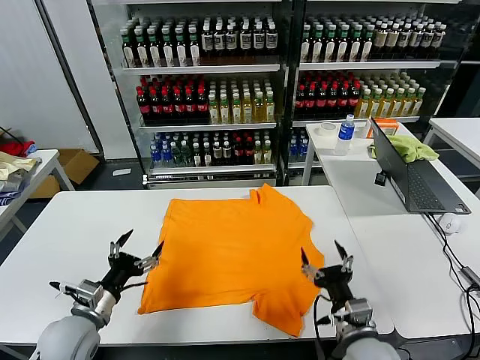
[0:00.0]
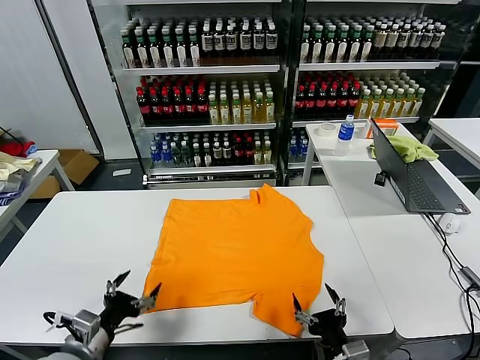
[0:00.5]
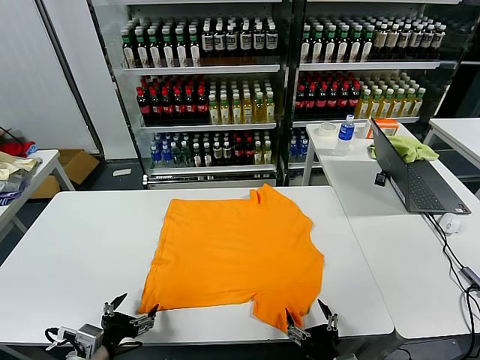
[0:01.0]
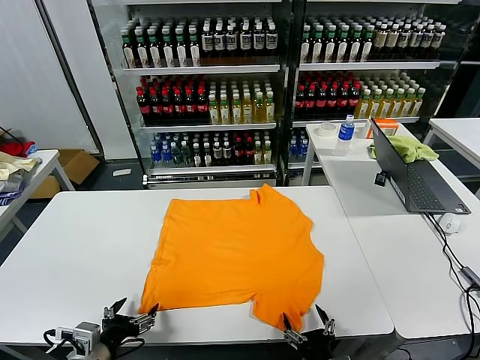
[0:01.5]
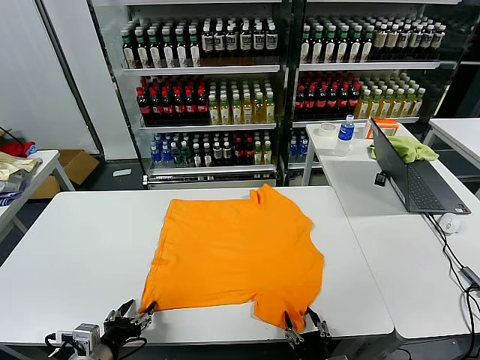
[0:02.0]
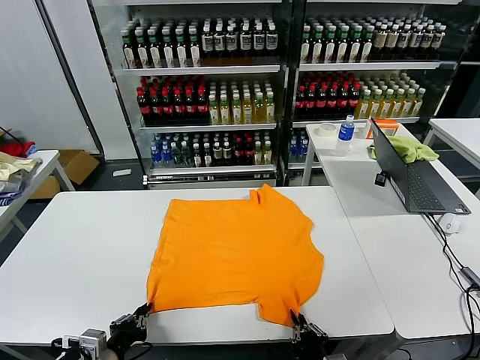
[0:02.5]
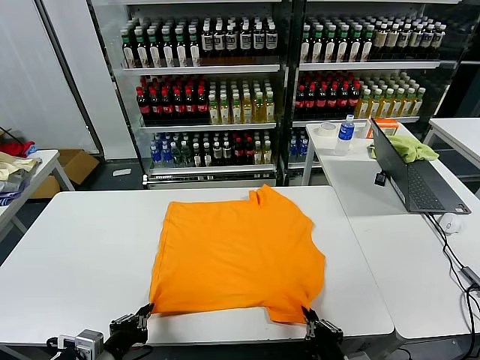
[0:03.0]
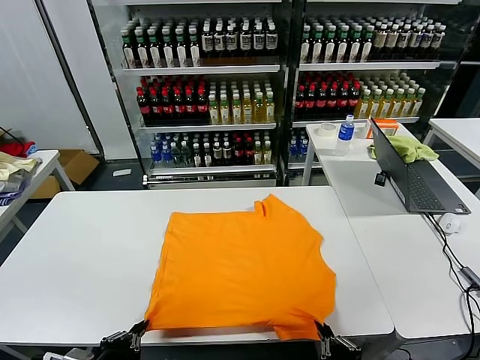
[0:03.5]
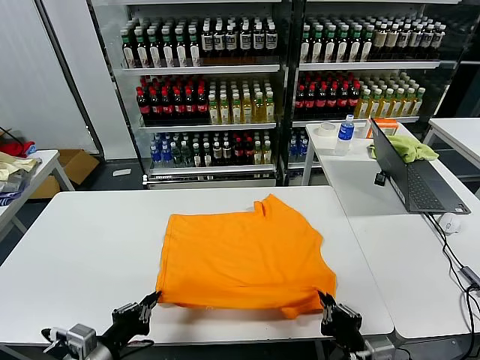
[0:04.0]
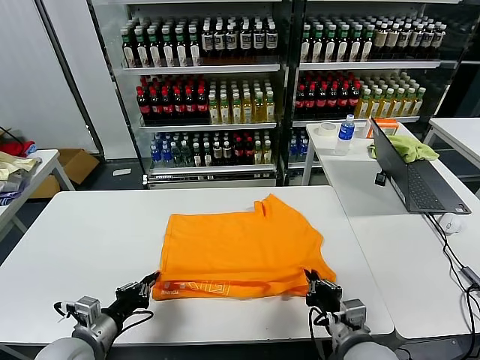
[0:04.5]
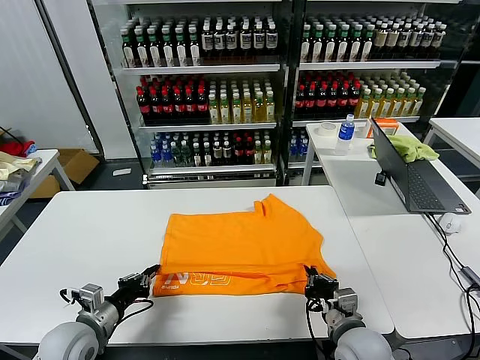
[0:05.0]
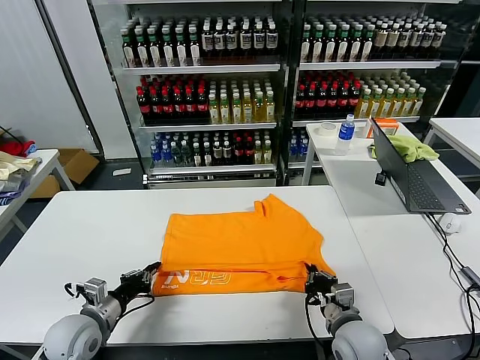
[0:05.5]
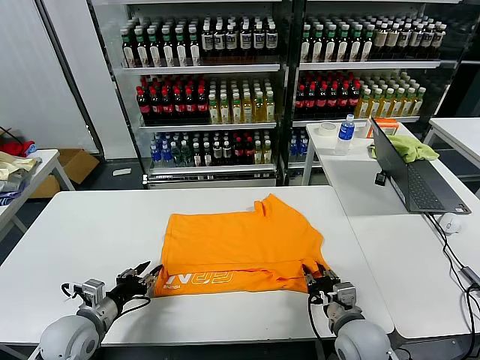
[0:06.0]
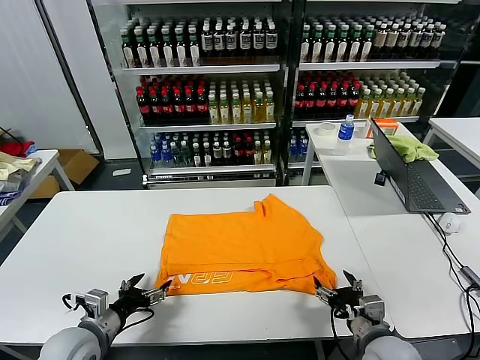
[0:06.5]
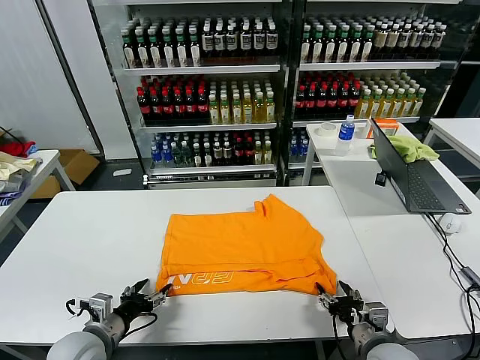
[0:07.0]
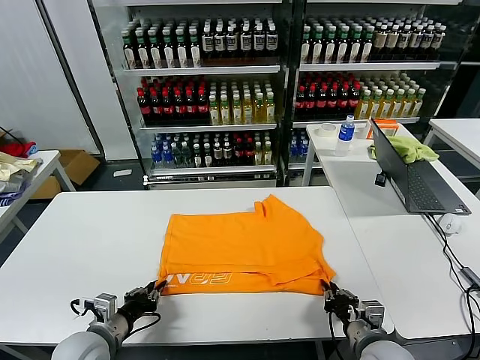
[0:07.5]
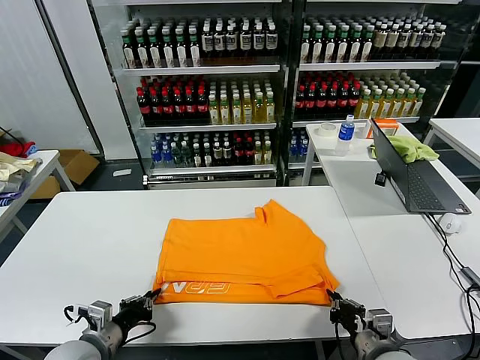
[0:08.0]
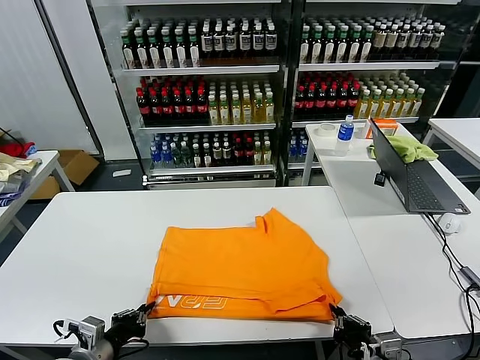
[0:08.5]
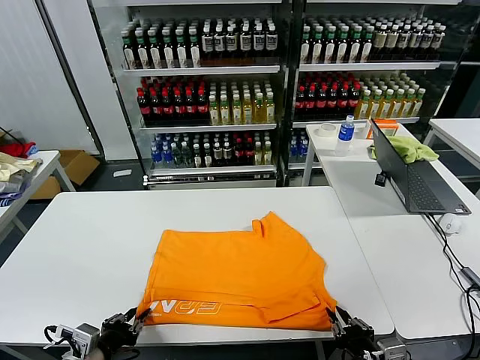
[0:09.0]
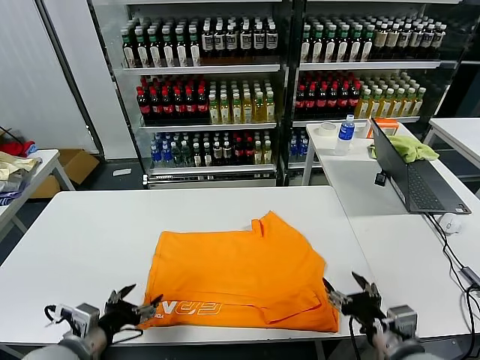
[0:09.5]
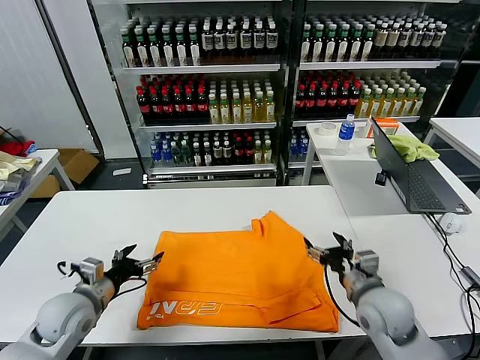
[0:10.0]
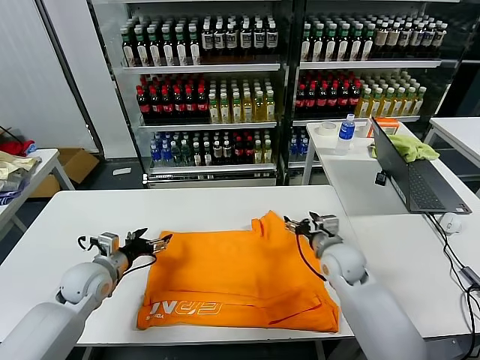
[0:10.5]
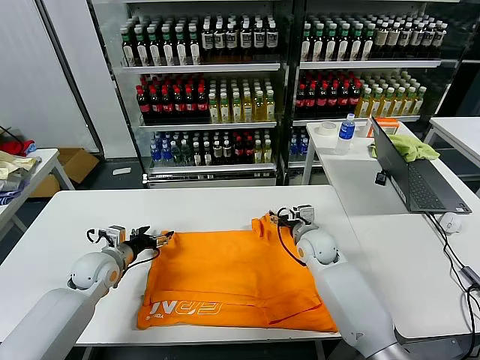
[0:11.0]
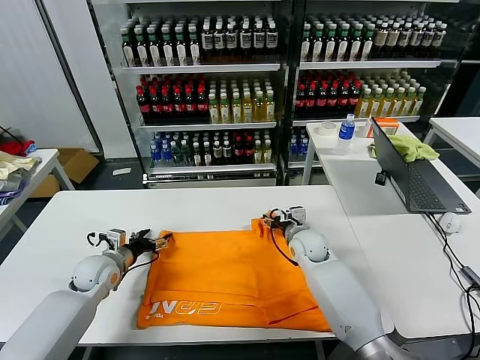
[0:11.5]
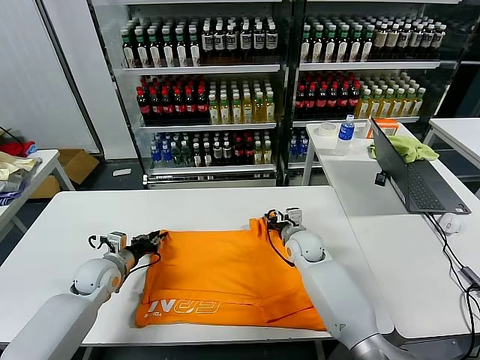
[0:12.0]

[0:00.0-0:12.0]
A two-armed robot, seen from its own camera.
Task of the whole recording: fold and organize the clothes.
Step, 0:00.0 to 0:02.5: use both grippers simultaneously to clamp the lower edge of the clothing fabric.
Step, 0:03.0 to 0:06.0: use both grippers to drag the lower edge of the fabric forward and fold it over the upper edge.
Step, 0:06.5 to 0:09.0: Drag the clothes downward with both gripper.
0:02.0 to 0:04.0: The right gripper shifts about 5 cm upward, and closes up; the left gripper closes.
0:04.0 to 0:06.0: The right gripper goes approximately 10 cm forward, and opens its fingers. Meanwhile the left gripper heads forward, downward and to the left, covering some 15 cm, and opens its fingers.
0:06.0 to 0:08.0: Both grippers travel together backward, roughly 5 cm. The left gripper closes up, while the right gripper closes.
0:08.0 to 0:10.0: The right gripper travels forward by roughly 15 cm, and opens. The left gripper heads forward, covering some 10 cm, and opens.
0:10.0 to 0:12.0: The left gripper shifts roughly 15 cm forward and downward, and closes its fingers. The right gripper is displaced forward, to the left and downward by approximately 20 cm, and closes.

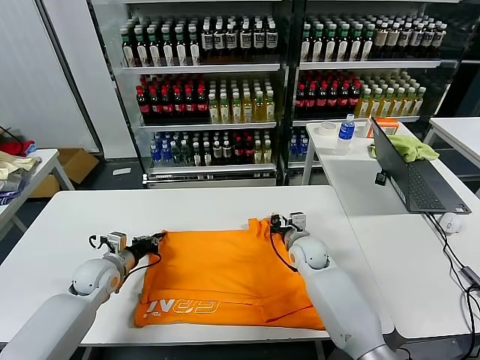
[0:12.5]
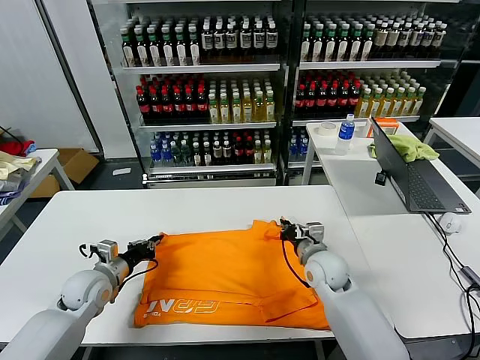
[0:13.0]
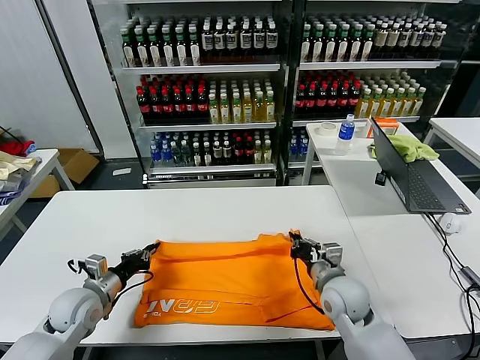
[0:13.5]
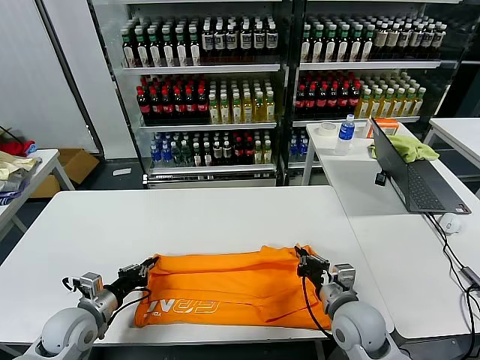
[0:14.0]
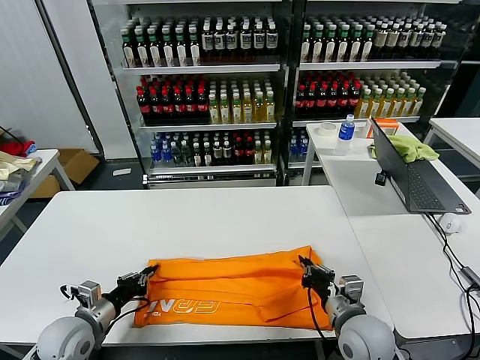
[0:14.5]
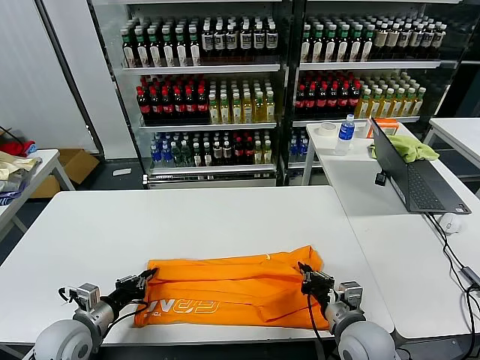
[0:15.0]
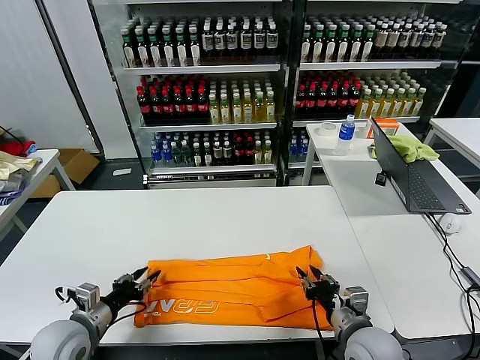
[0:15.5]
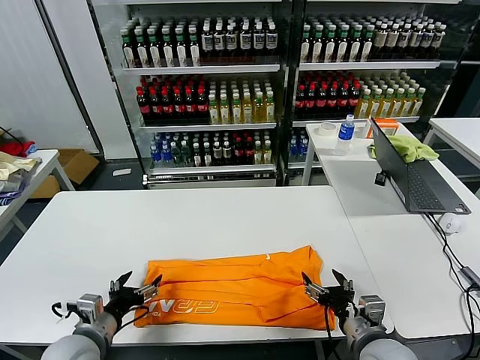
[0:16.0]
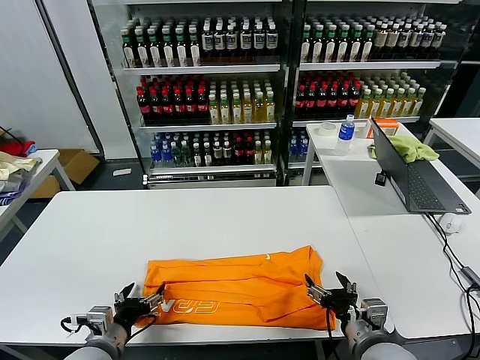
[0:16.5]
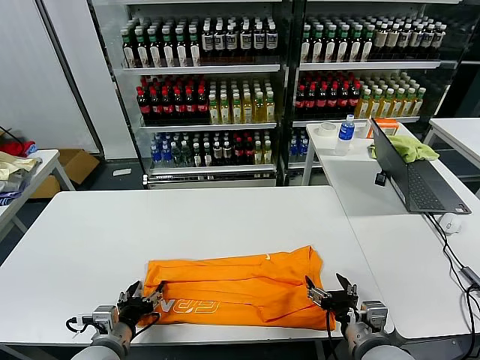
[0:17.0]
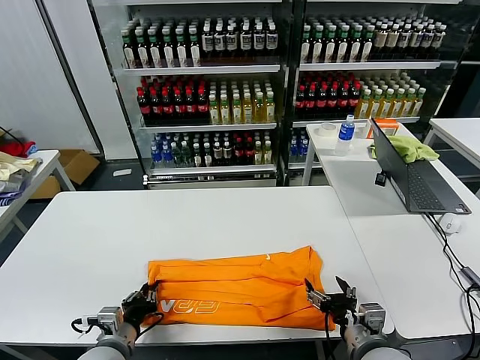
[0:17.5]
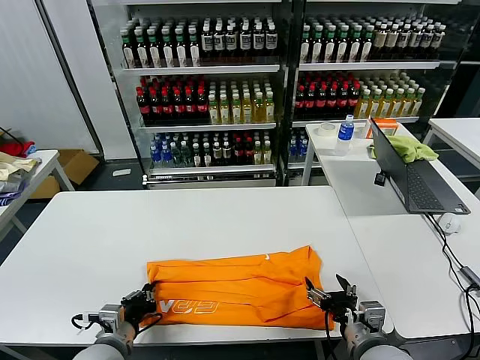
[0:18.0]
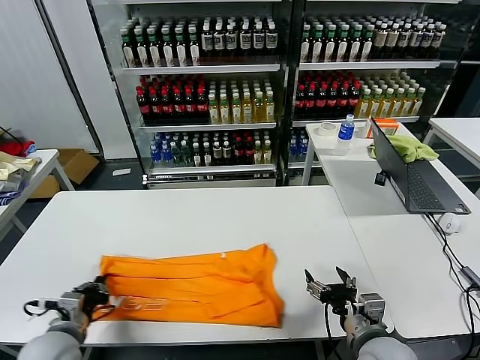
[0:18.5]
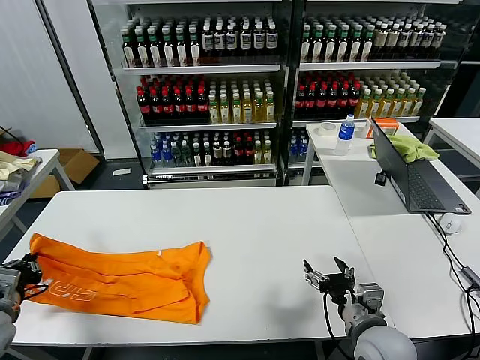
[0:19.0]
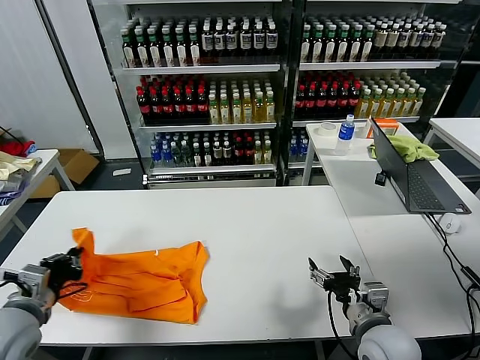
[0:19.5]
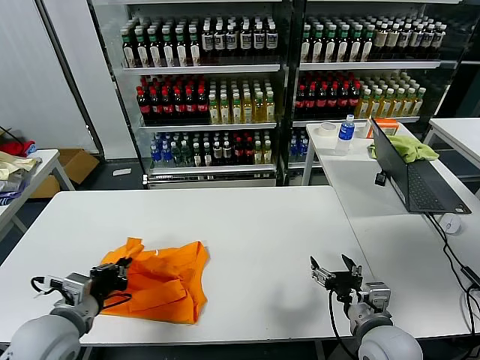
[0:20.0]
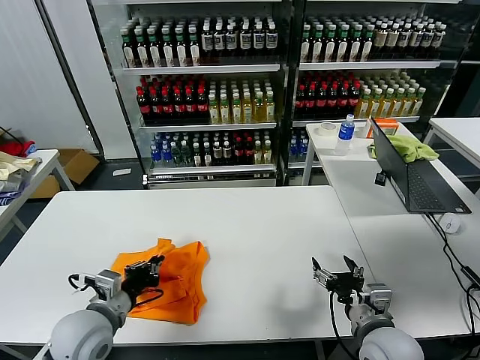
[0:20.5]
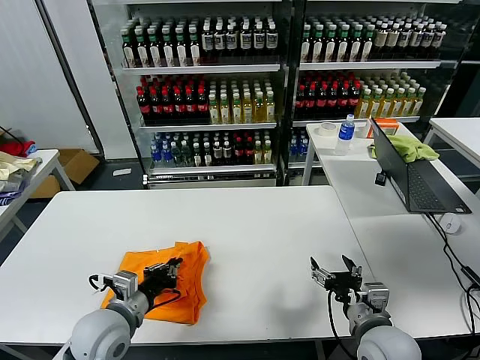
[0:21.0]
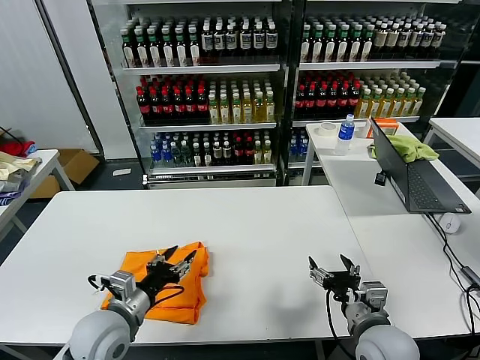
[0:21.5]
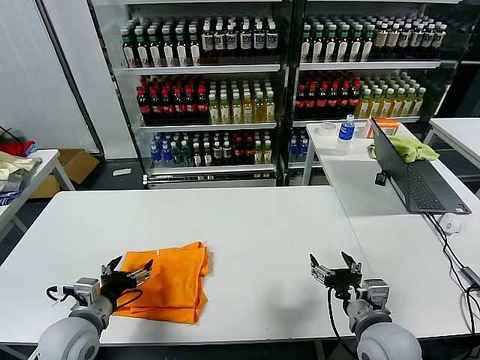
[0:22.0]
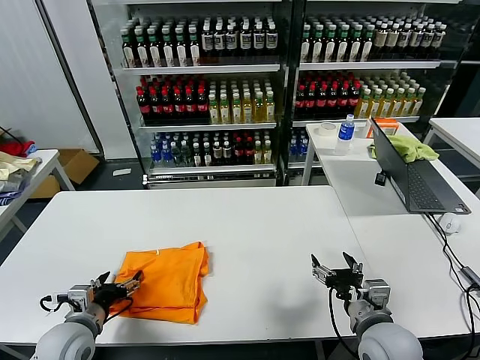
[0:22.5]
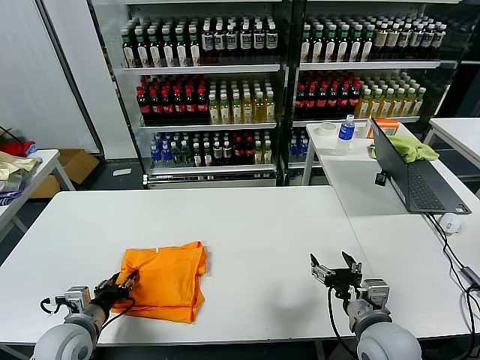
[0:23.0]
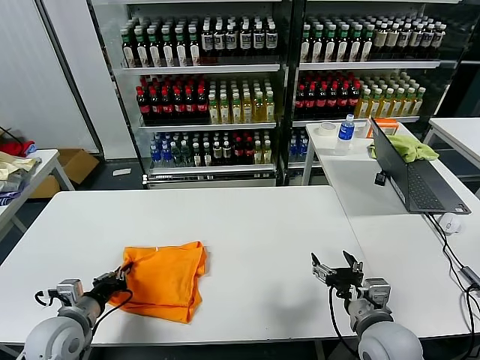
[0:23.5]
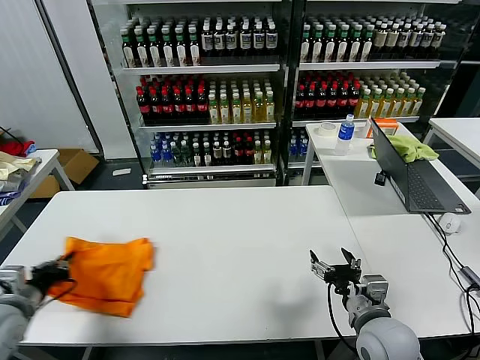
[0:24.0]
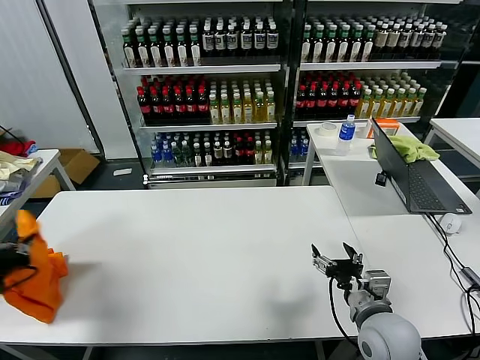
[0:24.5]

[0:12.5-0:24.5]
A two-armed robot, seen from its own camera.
Task of the whole recording: fold and organize the clothes.
Step, 0:12.5 to 0:15.0: use both grippers to drag the upper edge of the fabric backward and fold it over the lower edge.
Step, 0:16.0 to 0:17.5: use the left gripper to clamp the left edge of the fabric.
Step, 0:18.0 to 0:21.0: use the left gripper to drag the left edge of the fabric to the left and folds it over the right edge.
0:12.5 to 0:14.5: The right gripper is displaced backward by approximately 20 cm, while the left gripper is displaced backward by roughly 15 cm.
0:14.5 to 0:16.5: The right gripper goes roughly 5 cm backward, and opens up; the left gripper goes approximately 10 cm to the right and backward, and opens.
0:16.5 to 0:18.5: The left gripper travels to the left by about 5 cm, and closes.
0:18.5 to 0:20.5: The left gripper is displaced to the right and upward by some 10 cm.
0:20.5 to 0:22.5: The left gripper heads downward and to the left, covering approximately 10 cm, and opens its fingers.
0:22.5 to 0:24.5: The left gripper heads to the left and upward, covering approximately 20 cm, and closes.

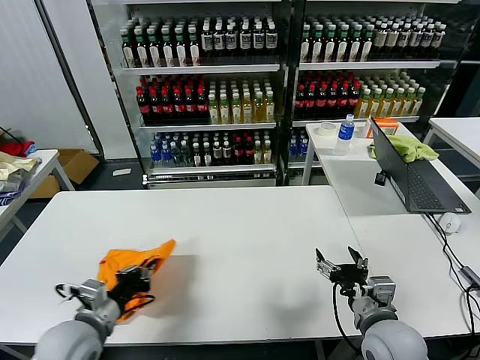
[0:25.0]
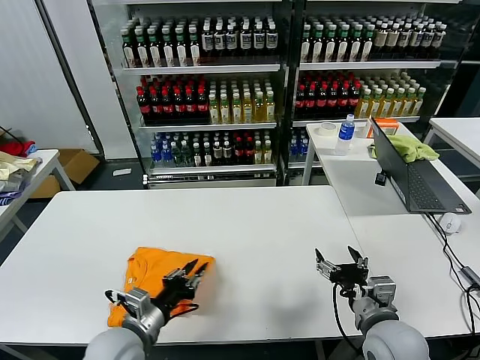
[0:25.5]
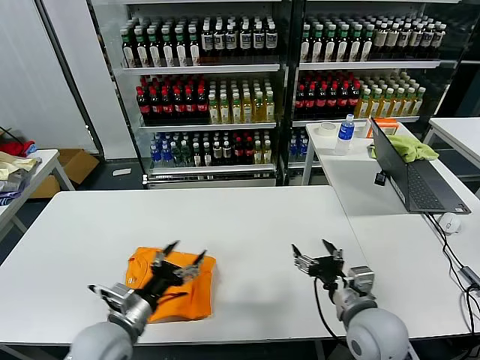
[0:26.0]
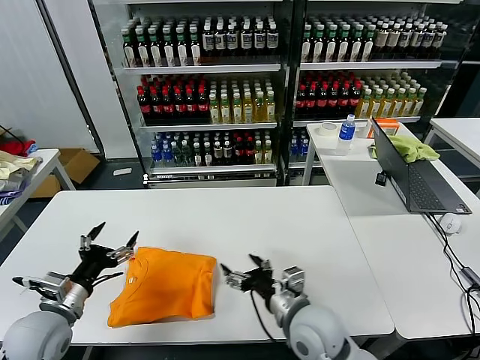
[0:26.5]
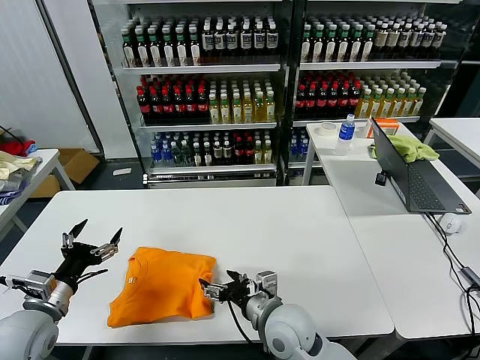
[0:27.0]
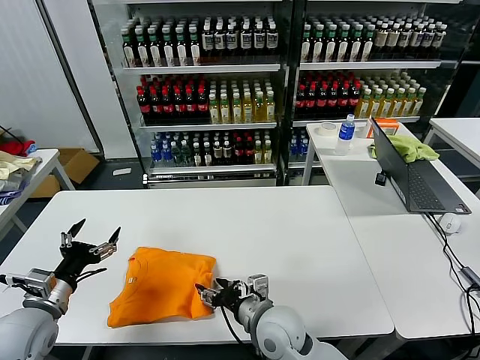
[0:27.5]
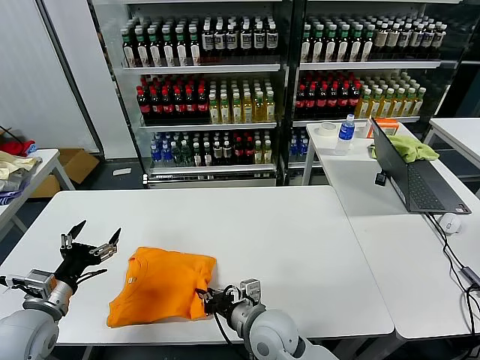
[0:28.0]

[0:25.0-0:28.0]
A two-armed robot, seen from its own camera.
Task of the whole recording: fold and organize the clothes.
0:25.0 to 0:26.5: The left gripper travels to the right and back again, some 10 cm each way, and opens up, while the right gripper travels to the left by roughly 10 cm.
0:26.5 to 0:28.0: The right gripper is displaced to the left by roughly 10 cm, and closes up.
